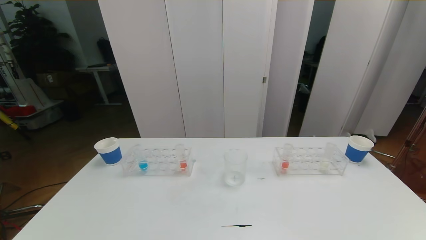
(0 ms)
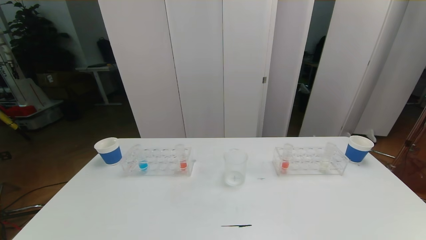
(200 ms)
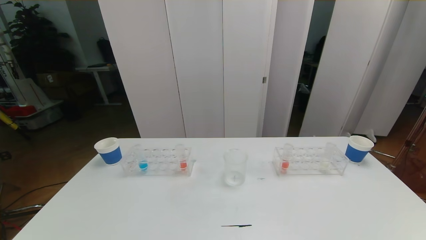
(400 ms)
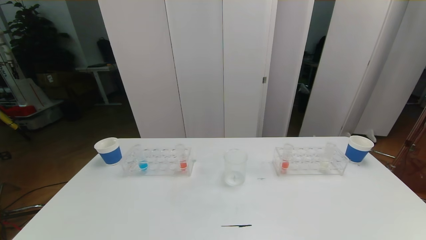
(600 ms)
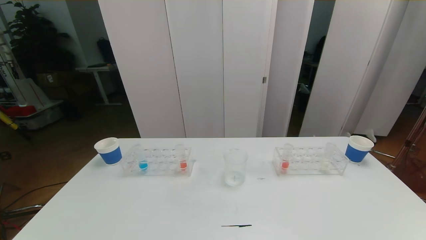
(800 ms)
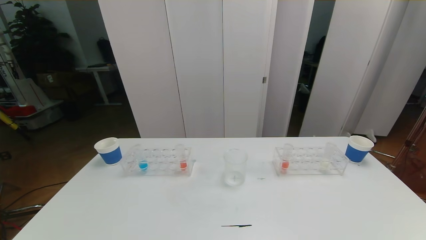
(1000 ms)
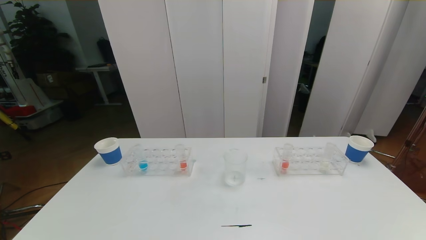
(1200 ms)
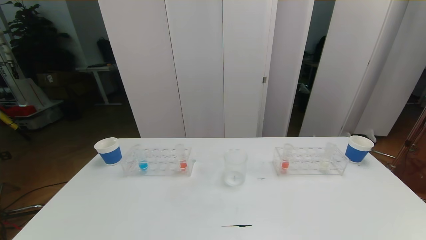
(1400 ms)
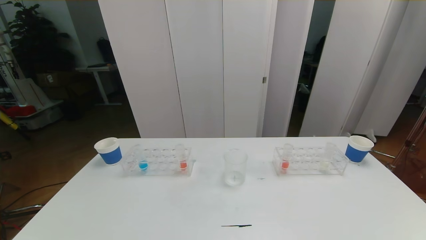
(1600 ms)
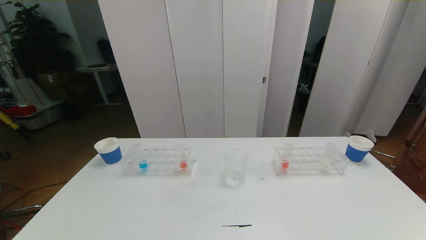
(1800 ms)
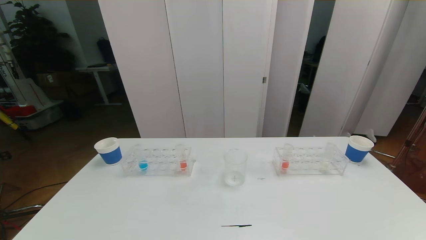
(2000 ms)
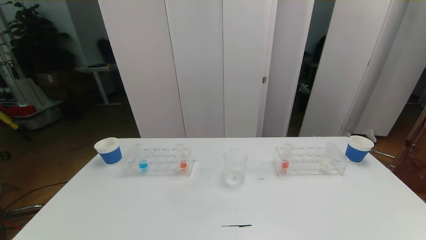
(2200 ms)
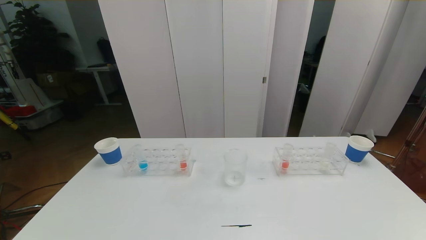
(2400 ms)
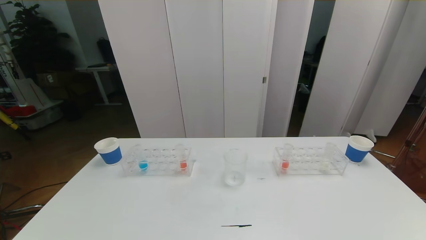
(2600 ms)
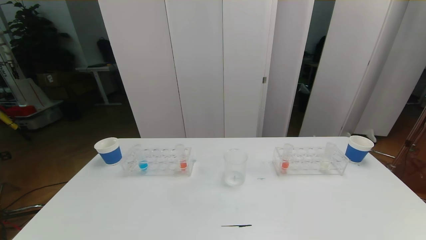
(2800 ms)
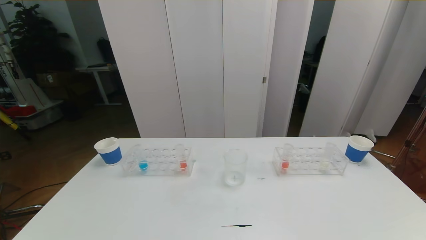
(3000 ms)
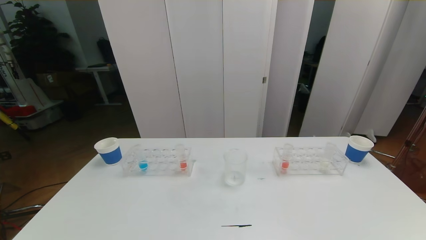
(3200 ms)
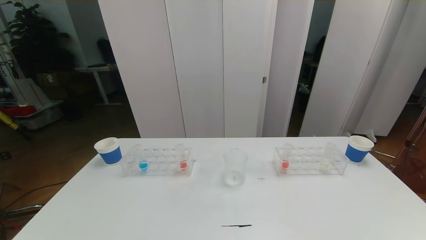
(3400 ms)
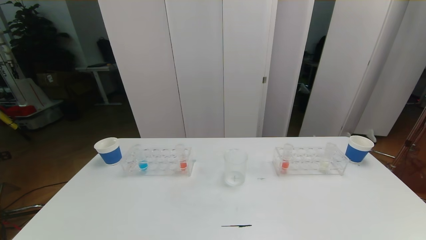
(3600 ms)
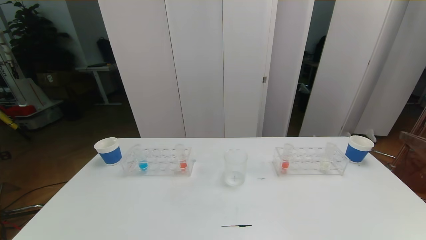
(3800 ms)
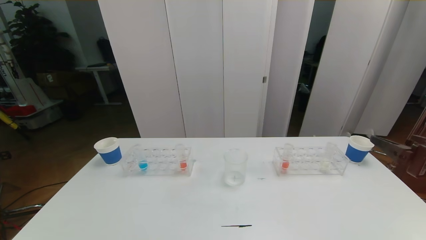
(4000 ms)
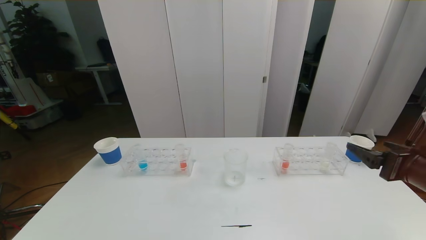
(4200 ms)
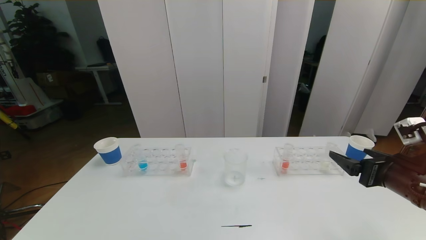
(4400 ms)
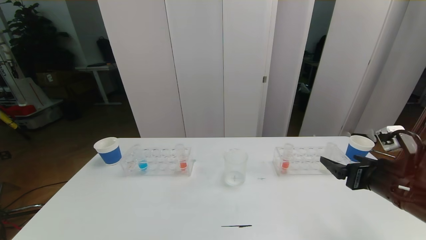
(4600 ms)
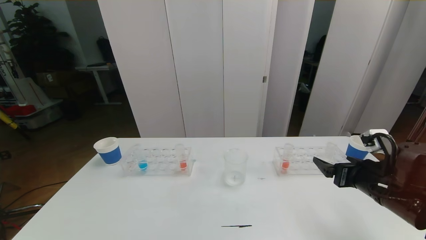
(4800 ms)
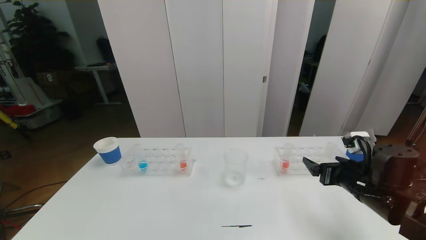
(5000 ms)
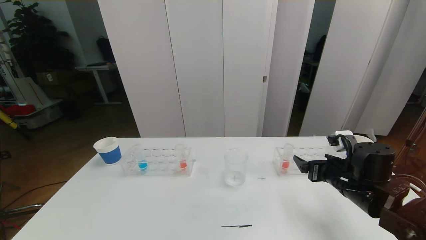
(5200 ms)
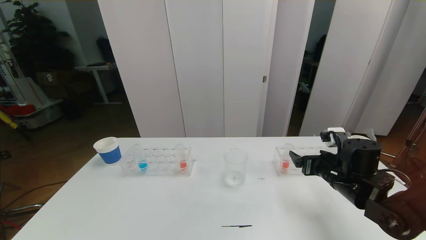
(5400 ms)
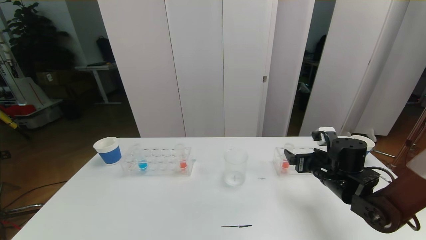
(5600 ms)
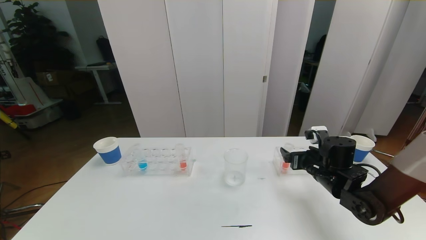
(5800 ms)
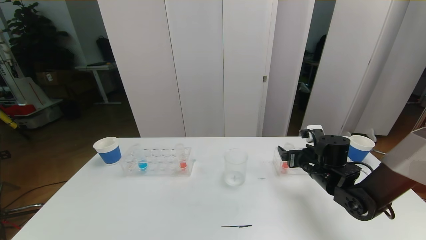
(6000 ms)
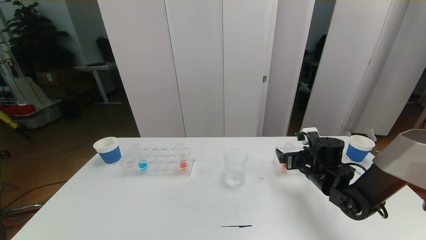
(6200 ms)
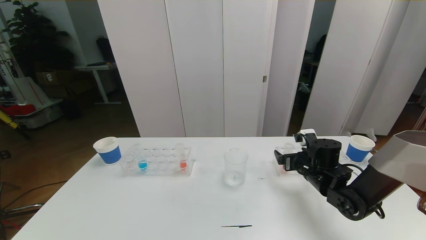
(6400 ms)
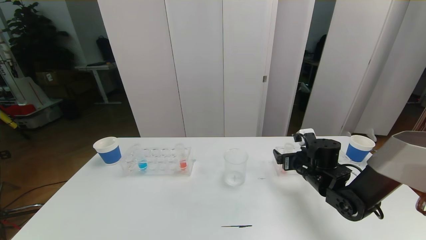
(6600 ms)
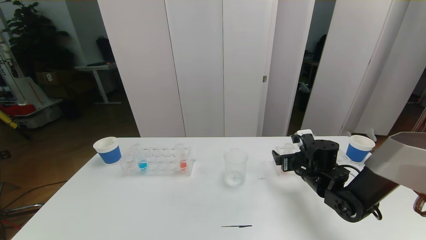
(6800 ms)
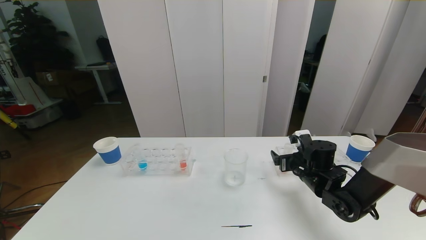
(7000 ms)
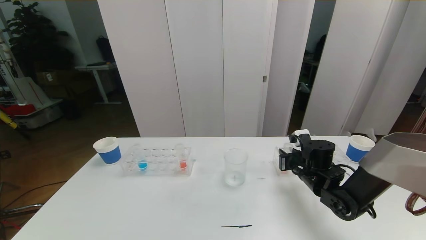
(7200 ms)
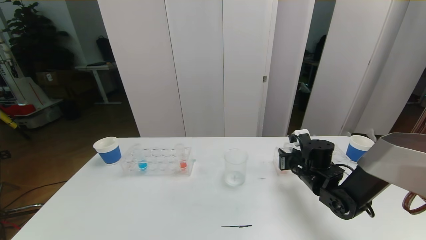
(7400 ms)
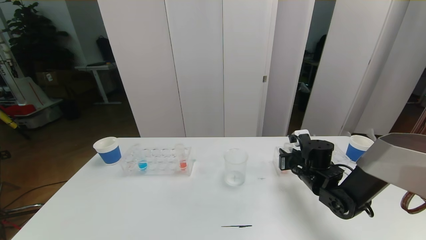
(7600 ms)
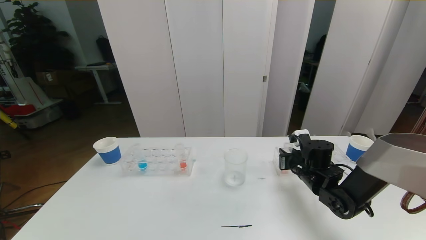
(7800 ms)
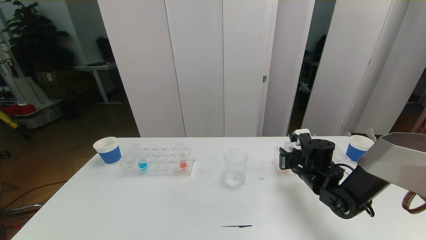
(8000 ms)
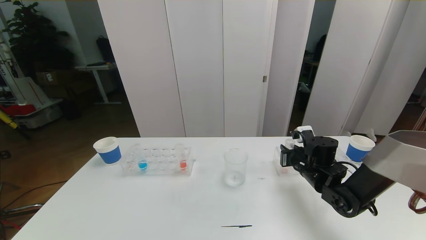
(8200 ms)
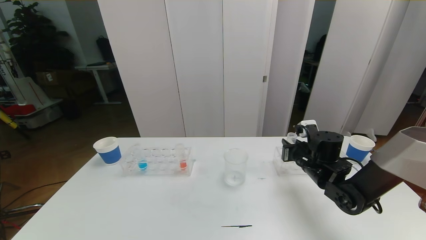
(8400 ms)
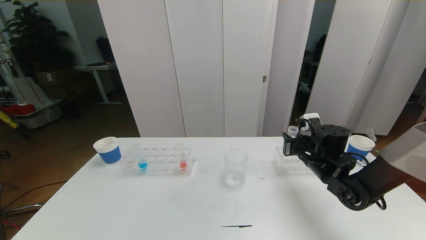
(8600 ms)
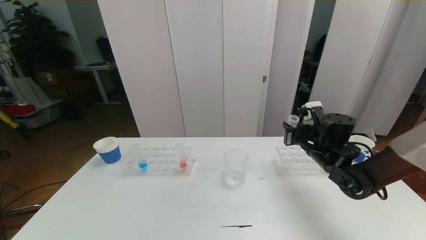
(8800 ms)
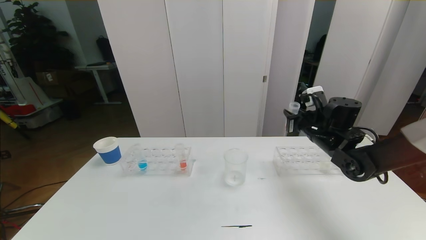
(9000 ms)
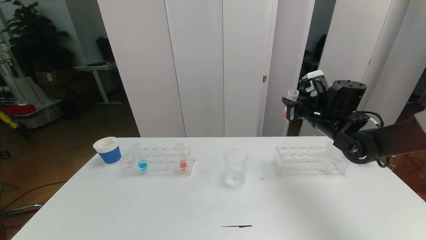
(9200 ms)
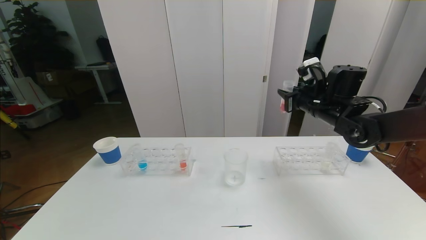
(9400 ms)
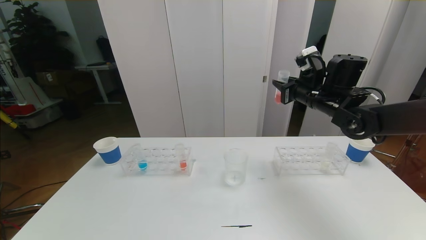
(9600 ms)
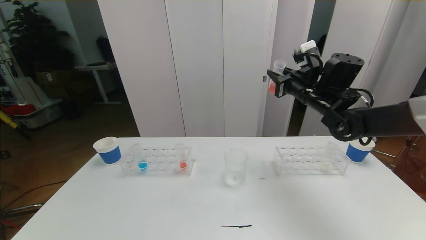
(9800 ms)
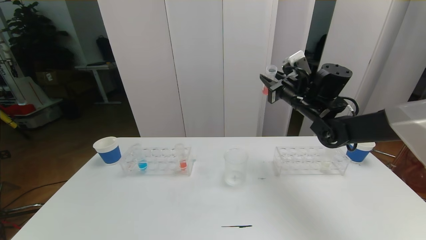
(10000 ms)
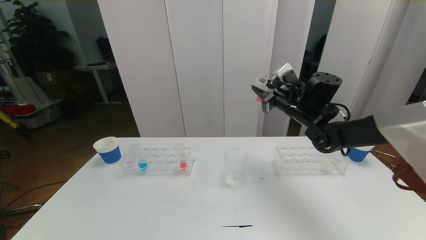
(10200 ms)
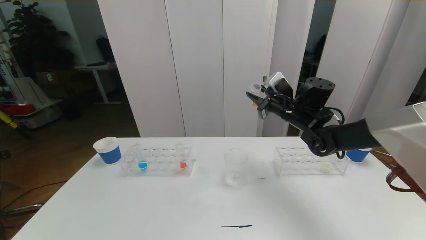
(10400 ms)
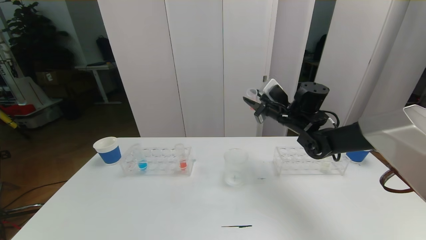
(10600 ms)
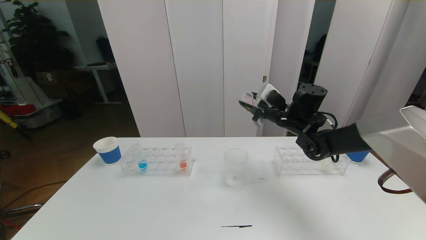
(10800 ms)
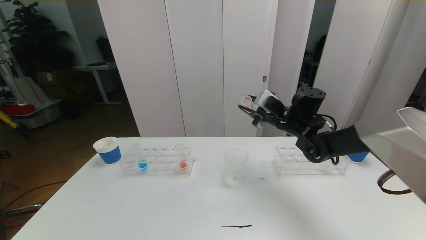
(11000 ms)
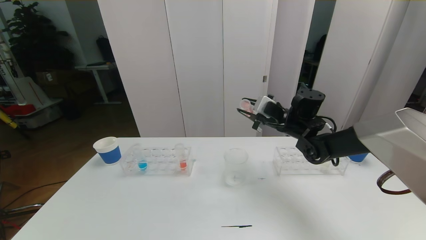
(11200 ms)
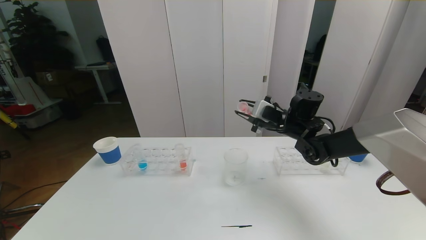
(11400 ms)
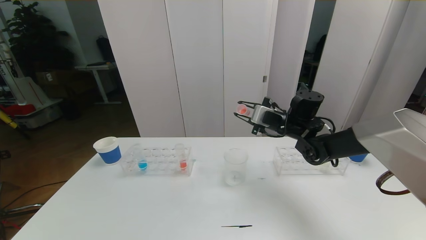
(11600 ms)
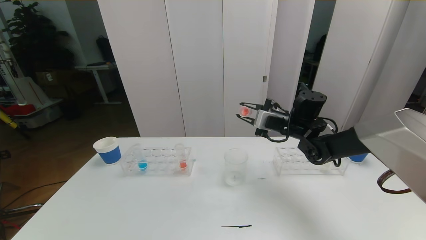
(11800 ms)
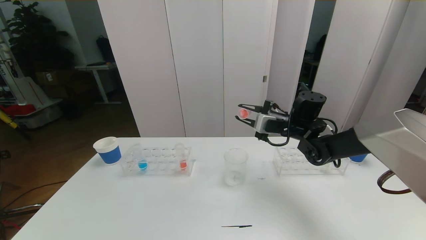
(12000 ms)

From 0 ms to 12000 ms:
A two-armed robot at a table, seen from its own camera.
Task of the whole recording: pick up the test tube with red pigment the test tube with blue pigment and the test tube with white pigment by grippers and pour them into the beaker.
From 0 ms to 1600 ms: Both grippers stay about where they are.
From 3000 ms to 4400 ms: The right gripper moves forward, approximately 25 cm.
From 4400 ms to 6000 ms: The right gripper heads forward, downward and to the left, covering some 20 cm.
From 6000 ms to 7600 ms: The right gripper closes up.
From 7600 ms to 9000 ms: The right gripper moves upward, some 10 cm.
From 9000 ms to 10400 ms: The right gripper goes roughly 5 cm to the left.

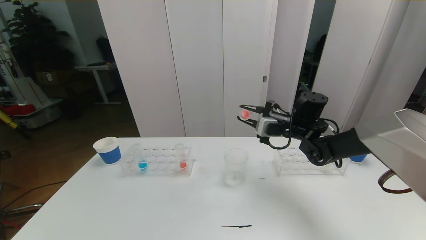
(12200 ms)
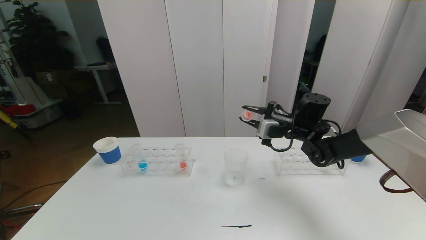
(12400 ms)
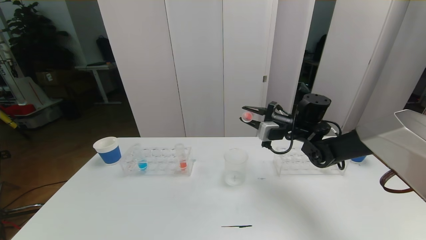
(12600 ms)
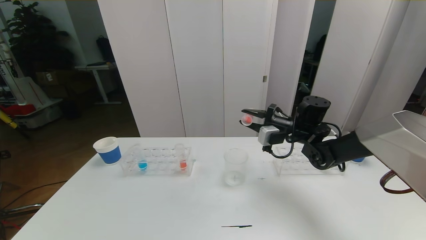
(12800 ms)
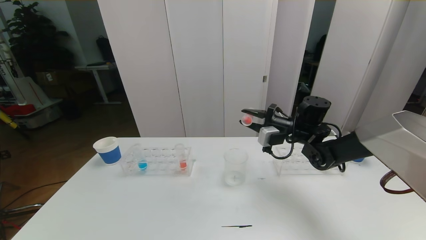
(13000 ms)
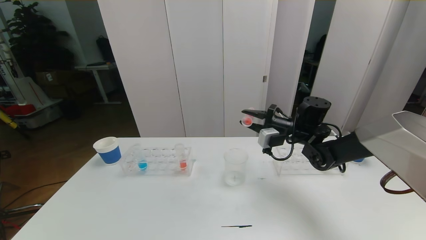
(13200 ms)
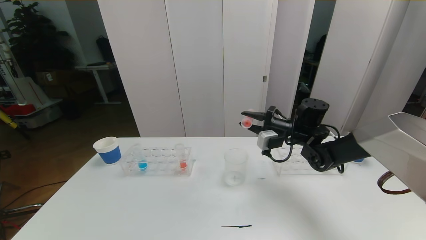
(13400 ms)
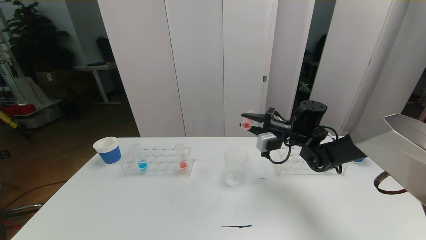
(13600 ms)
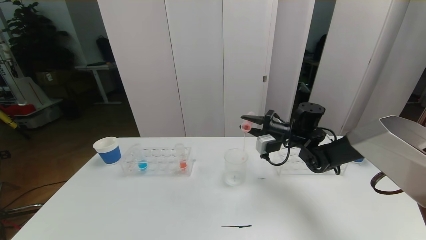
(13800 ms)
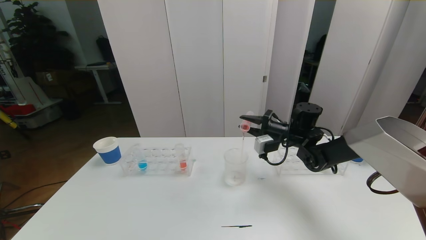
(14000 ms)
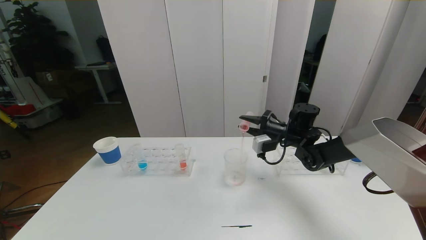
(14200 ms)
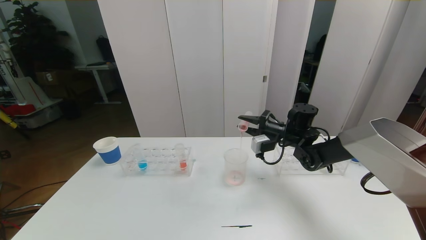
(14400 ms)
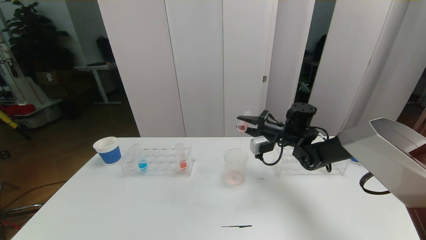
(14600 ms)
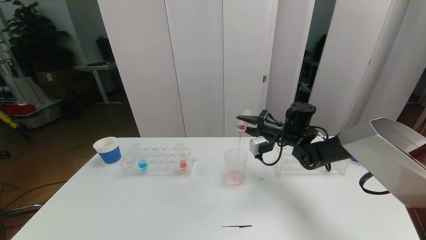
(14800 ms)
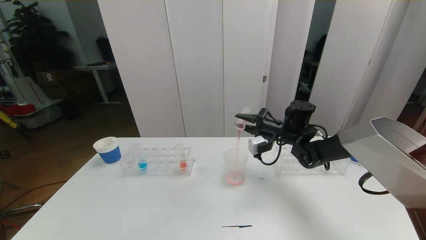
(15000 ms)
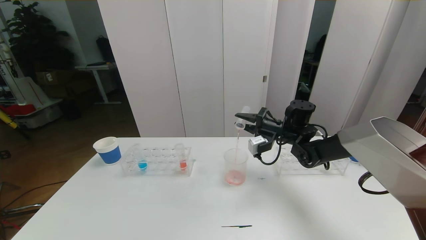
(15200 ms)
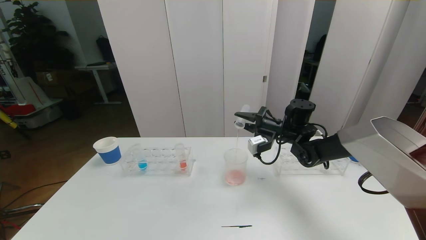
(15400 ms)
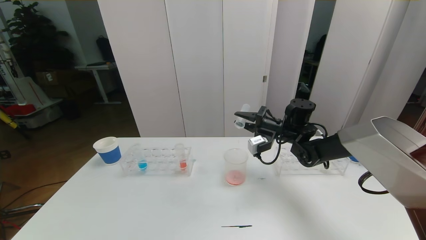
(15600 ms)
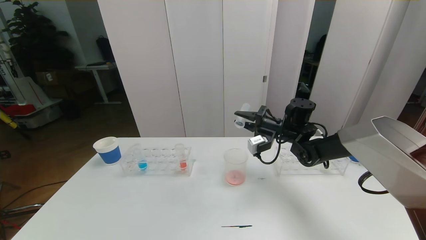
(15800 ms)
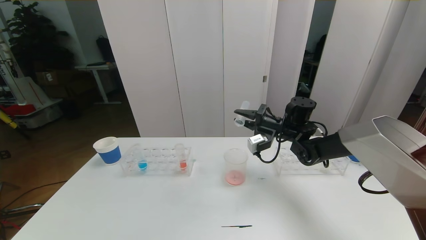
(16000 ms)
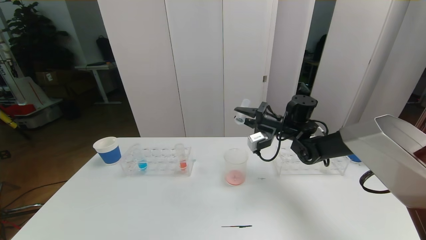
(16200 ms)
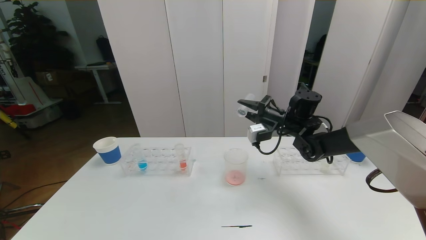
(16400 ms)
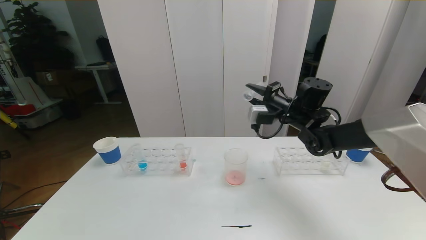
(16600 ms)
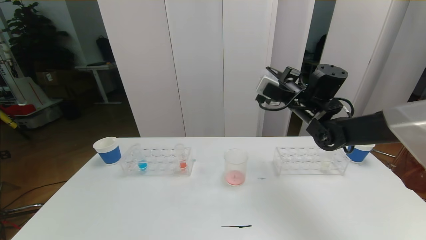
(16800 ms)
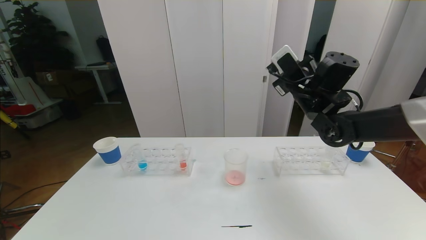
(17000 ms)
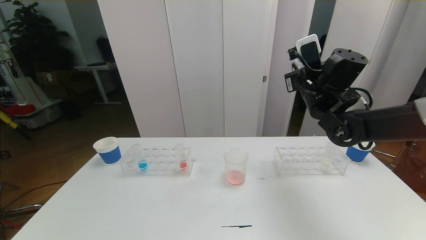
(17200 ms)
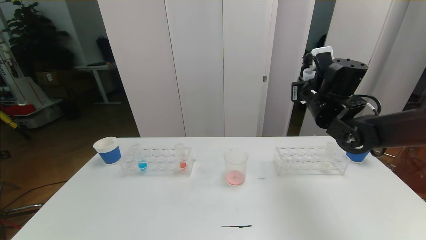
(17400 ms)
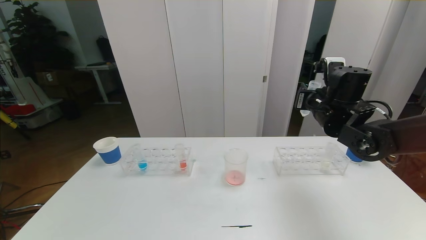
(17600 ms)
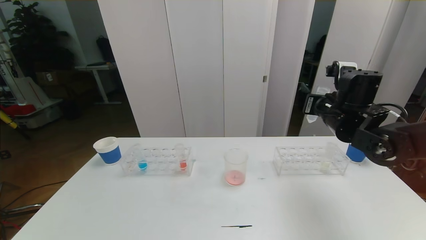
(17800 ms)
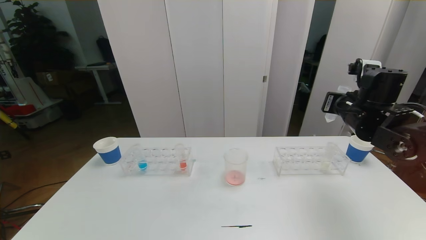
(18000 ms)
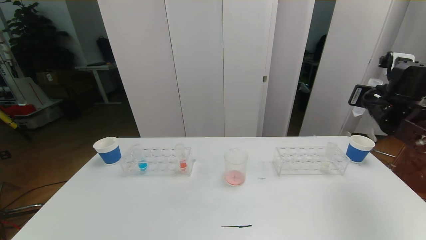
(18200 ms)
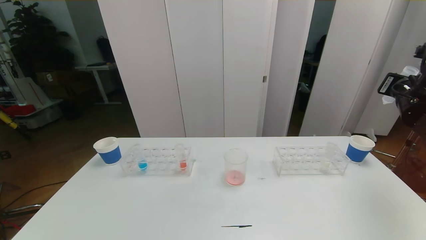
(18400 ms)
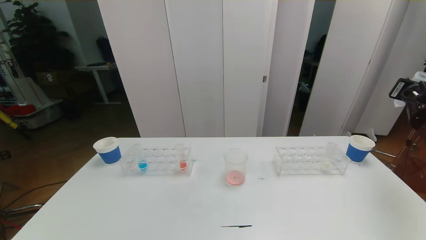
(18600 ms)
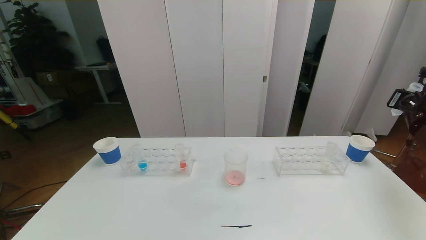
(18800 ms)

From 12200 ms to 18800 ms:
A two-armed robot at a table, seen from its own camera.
Task of the whole recording: pick up the test tube with red pigment the test tube with blue pigment and the test tube with white pigment by grippers and pour them into the beaker.
From 12200 ms to 13800 ms: The grippers stay close to where they were, moving slightly.
From 13800 ms to 15400 ms: The grippers move only a little.
From 15400 ms to 17200 ms: The right gripper heads upward and backward, covering approximately 15 cm.
From 17200 ms to 18800 ms: The right gripper goes approximately 25 cm to the right.
